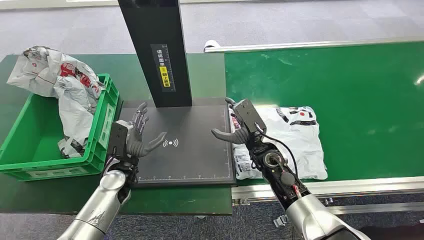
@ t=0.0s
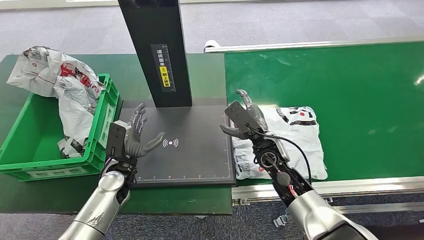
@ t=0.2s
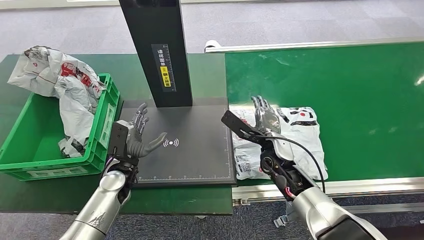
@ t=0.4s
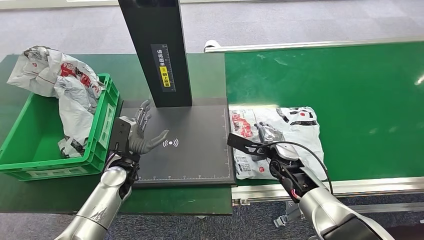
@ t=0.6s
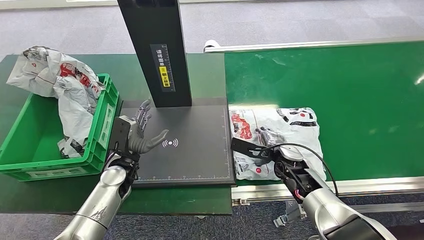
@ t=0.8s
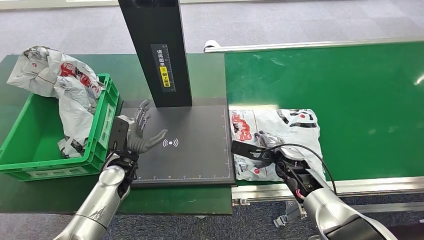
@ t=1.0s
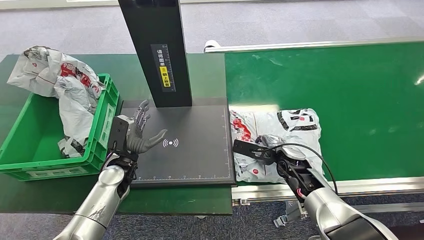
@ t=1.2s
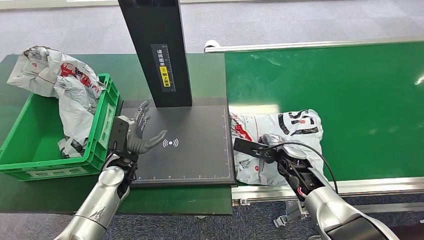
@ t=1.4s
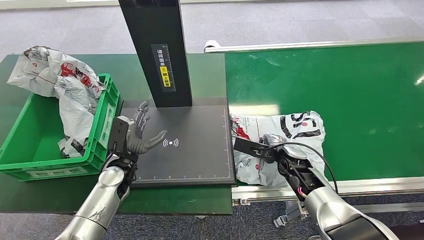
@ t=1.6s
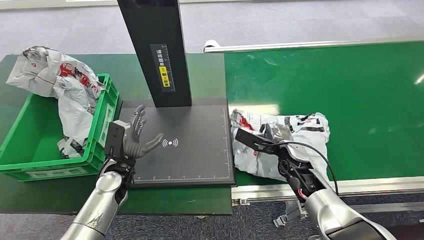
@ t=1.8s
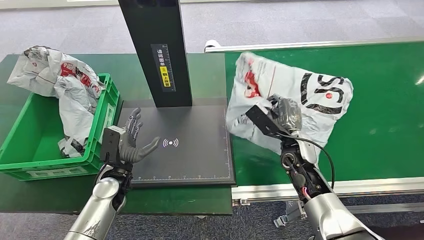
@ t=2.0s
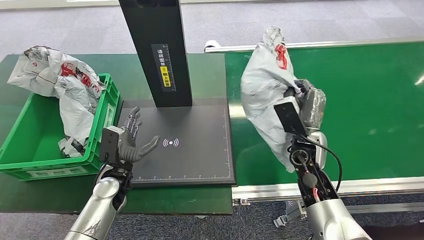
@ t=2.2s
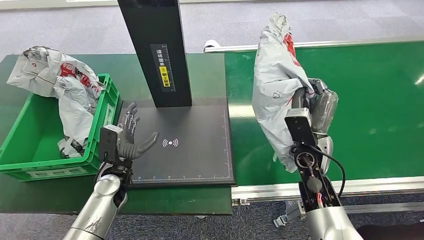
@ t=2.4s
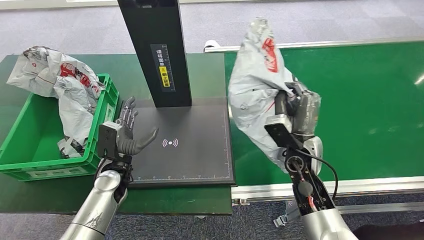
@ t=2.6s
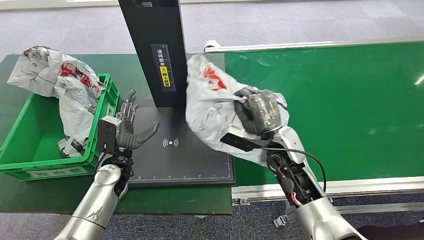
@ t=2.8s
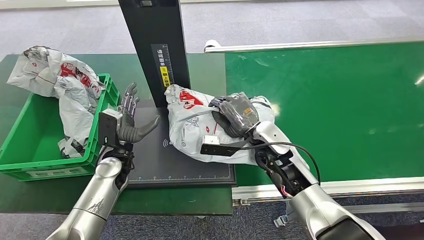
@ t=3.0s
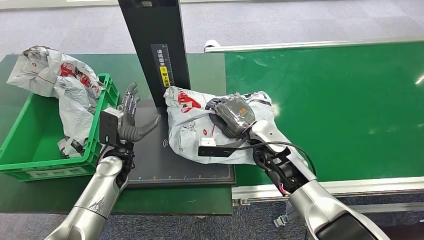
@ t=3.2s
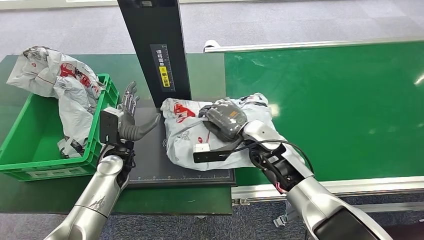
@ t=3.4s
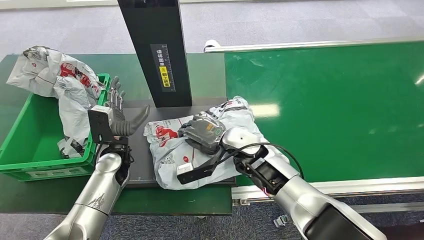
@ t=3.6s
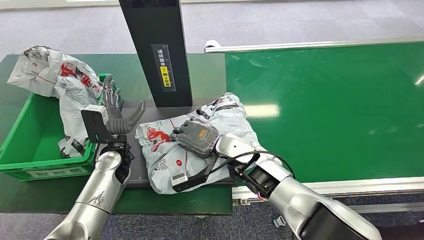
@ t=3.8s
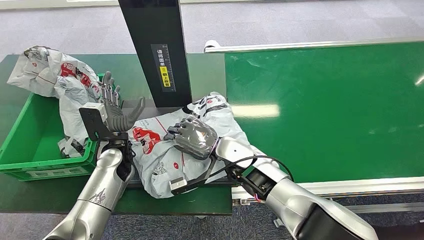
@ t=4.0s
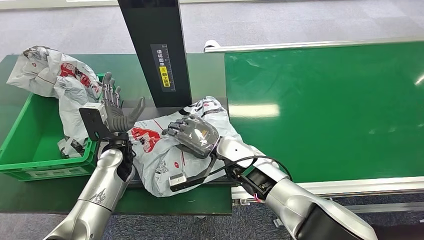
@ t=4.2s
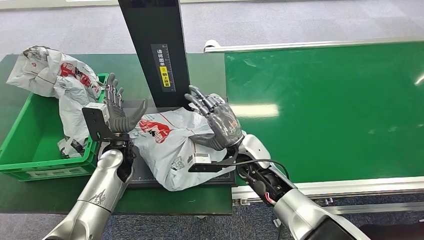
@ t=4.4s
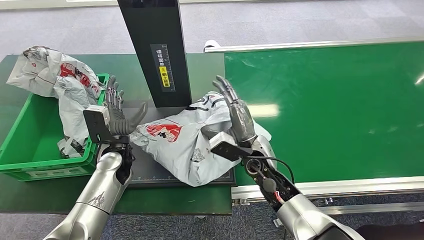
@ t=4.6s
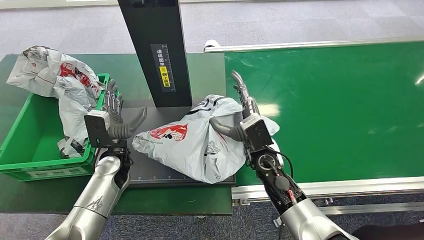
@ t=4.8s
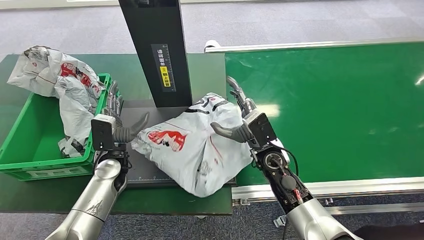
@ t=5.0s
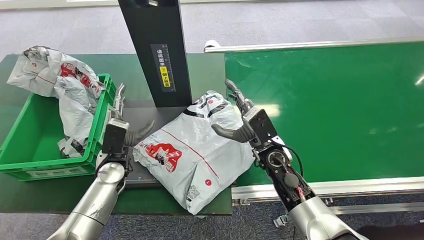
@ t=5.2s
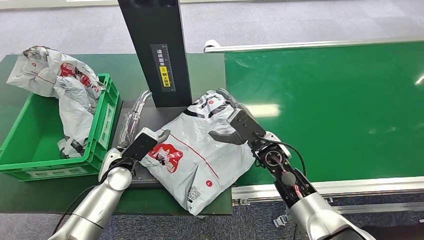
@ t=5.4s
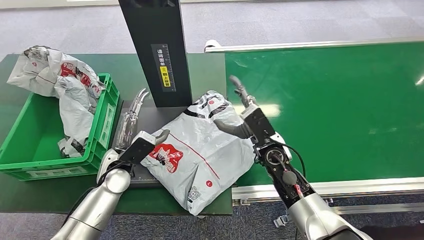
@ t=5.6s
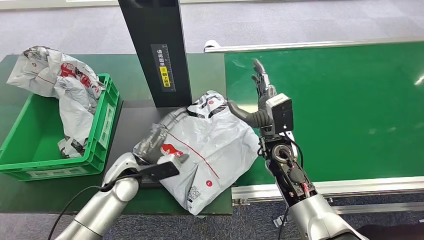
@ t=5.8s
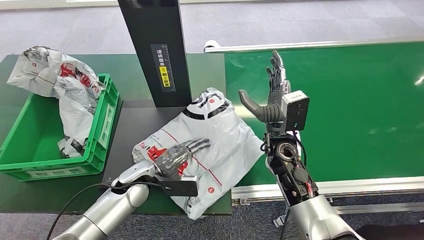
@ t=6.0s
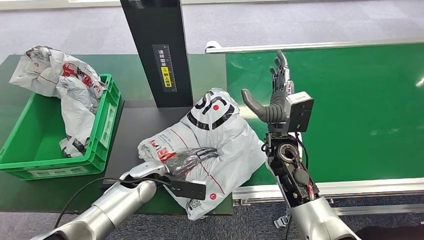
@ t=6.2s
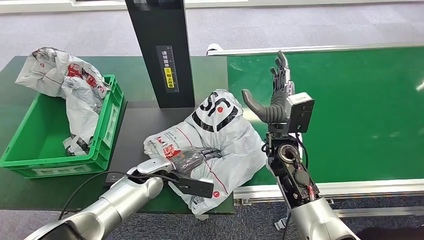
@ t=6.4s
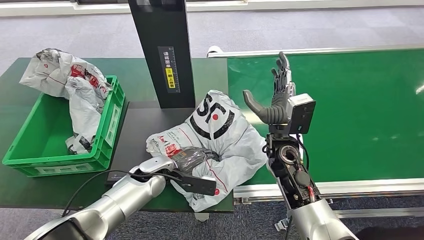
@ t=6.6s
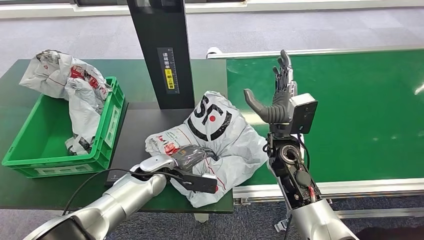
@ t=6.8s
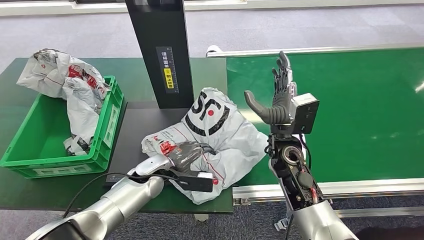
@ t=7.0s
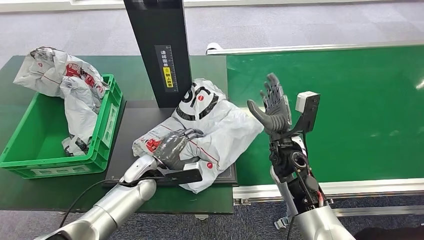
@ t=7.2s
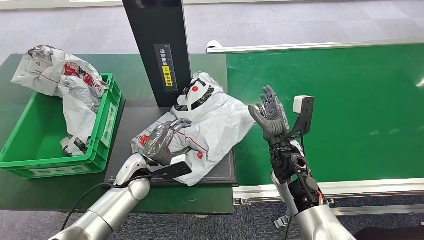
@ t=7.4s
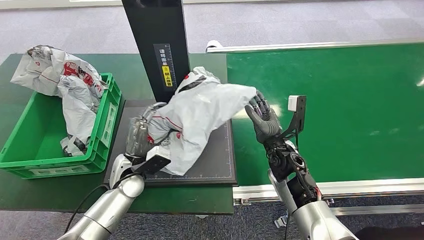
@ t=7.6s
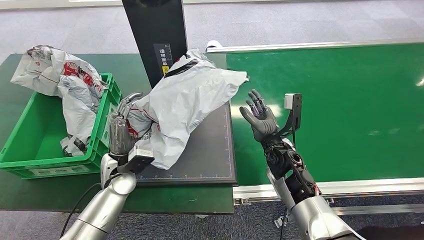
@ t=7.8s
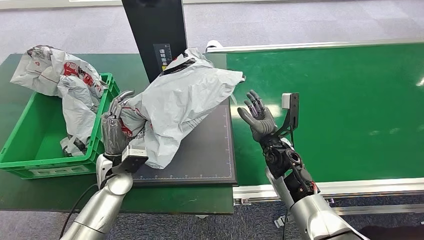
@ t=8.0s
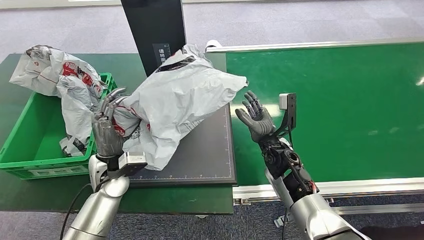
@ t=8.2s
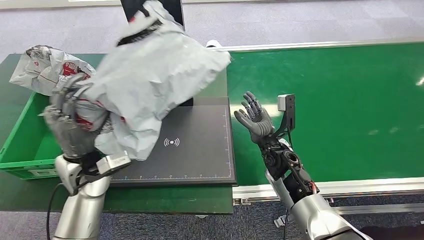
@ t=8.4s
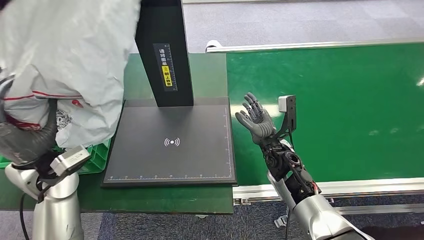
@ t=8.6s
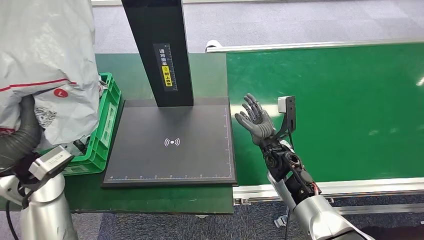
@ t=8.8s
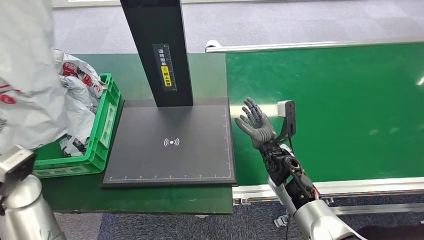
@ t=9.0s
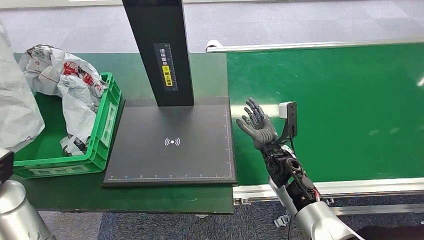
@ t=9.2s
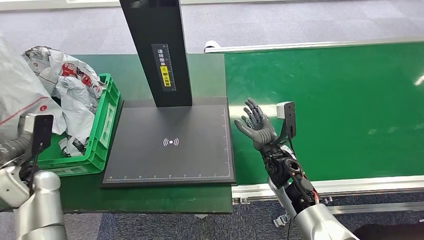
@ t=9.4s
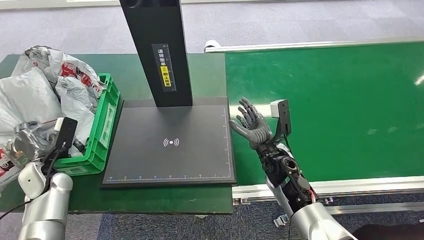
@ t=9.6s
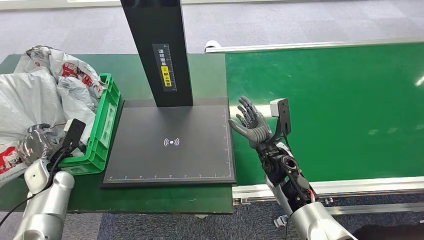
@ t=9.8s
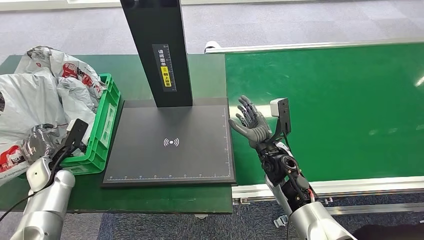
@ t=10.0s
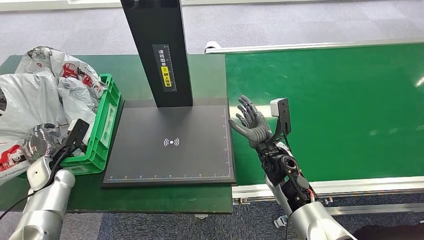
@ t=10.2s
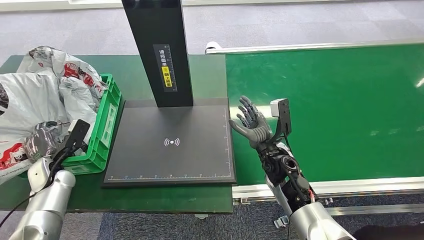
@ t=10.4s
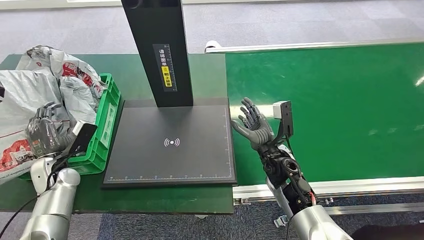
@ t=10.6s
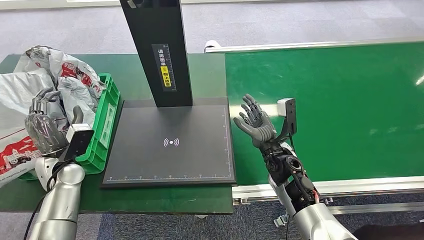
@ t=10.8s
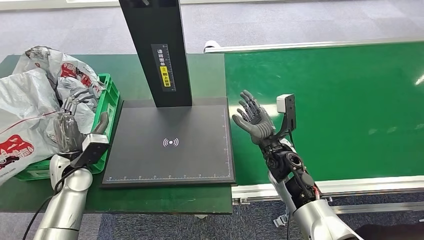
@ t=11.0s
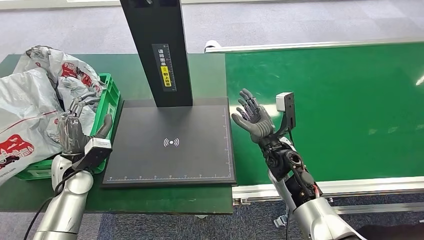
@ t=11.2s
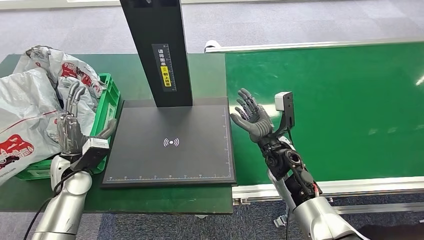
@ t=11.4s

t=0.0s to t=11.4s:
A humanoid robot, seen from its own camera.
Step, t=0.0s to t=2.8s: Pick up the package from the conveyor belt.
Step, t=3.0s to t=6.2s: Place the package onto the inbound machine.
Step, t=6.4s to t=8.6s: Pick up the package from the inbound machine.
Step, t=8.8s to t=11.4s: Place the package into the parcel locker.
t=10.0s to t=11.4s: The left hand moves to the right and upward, some 10 cm.
